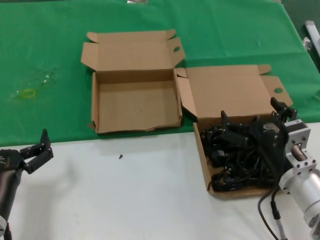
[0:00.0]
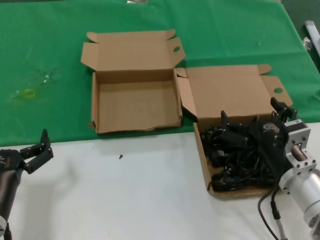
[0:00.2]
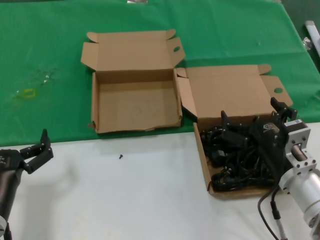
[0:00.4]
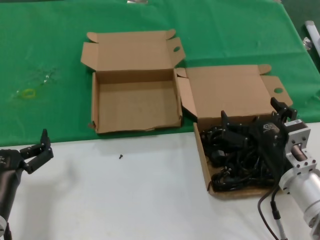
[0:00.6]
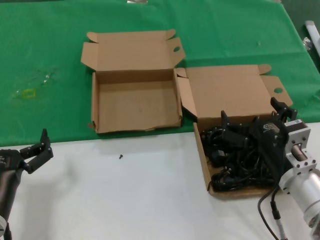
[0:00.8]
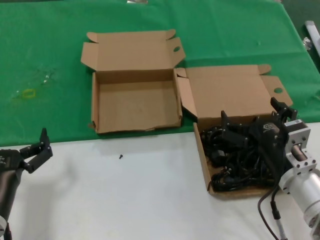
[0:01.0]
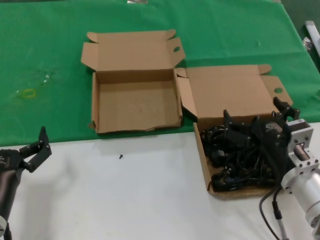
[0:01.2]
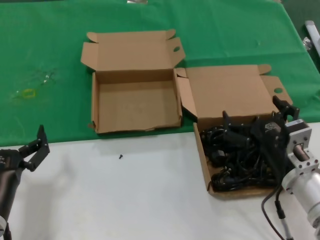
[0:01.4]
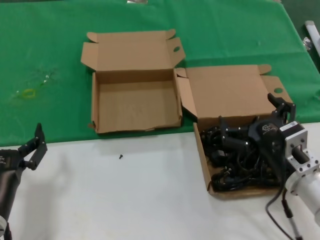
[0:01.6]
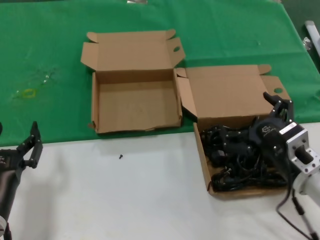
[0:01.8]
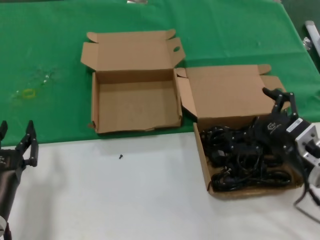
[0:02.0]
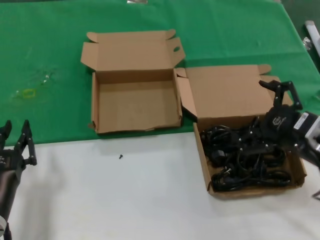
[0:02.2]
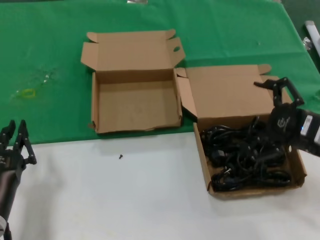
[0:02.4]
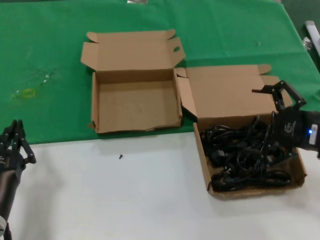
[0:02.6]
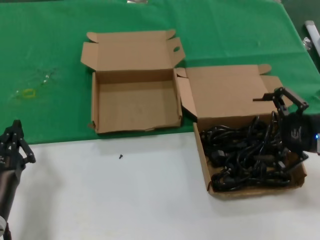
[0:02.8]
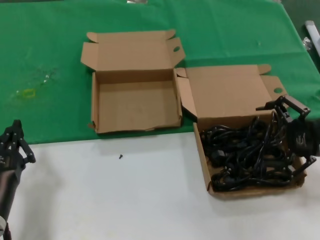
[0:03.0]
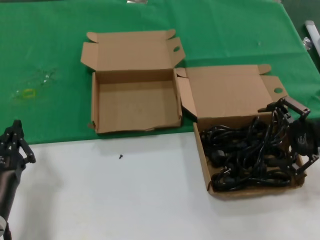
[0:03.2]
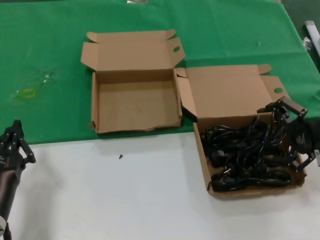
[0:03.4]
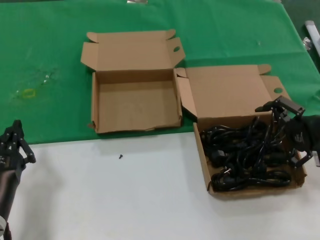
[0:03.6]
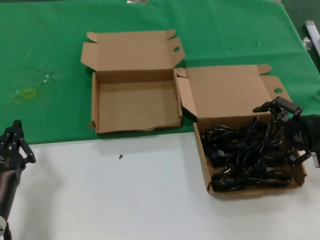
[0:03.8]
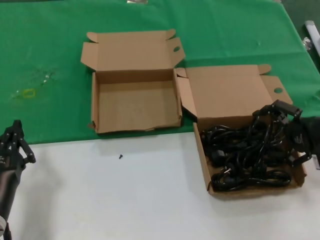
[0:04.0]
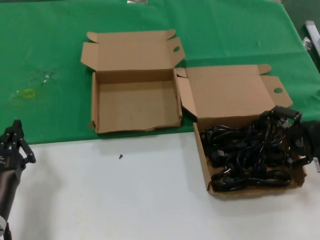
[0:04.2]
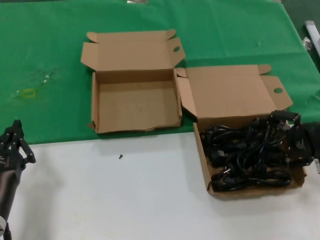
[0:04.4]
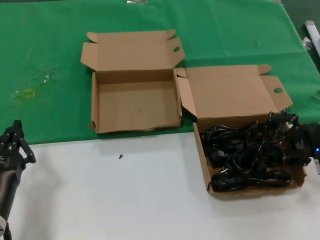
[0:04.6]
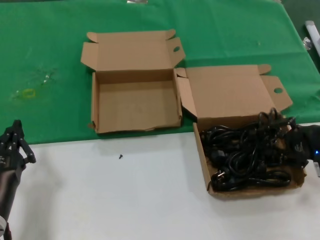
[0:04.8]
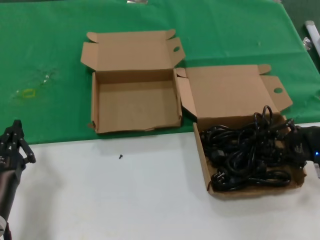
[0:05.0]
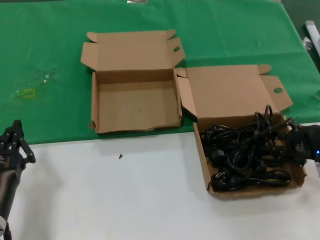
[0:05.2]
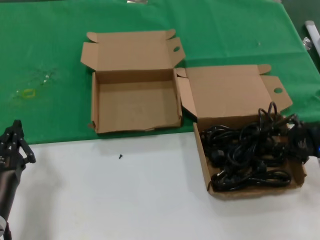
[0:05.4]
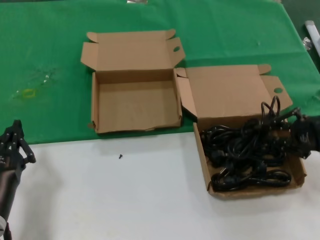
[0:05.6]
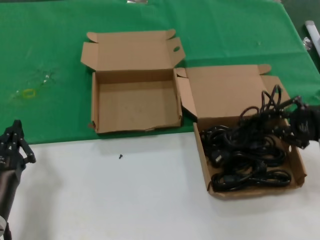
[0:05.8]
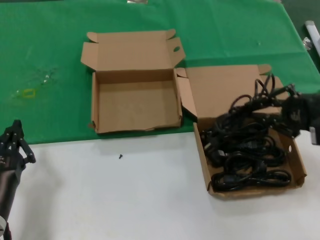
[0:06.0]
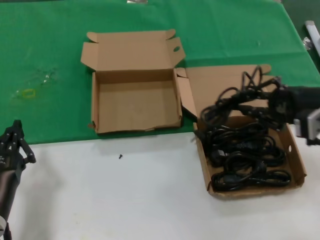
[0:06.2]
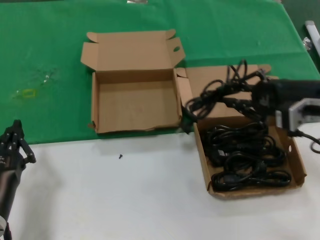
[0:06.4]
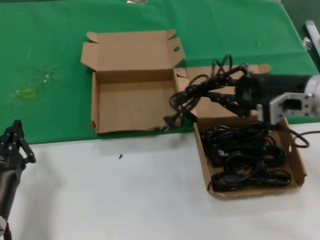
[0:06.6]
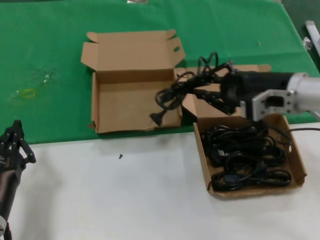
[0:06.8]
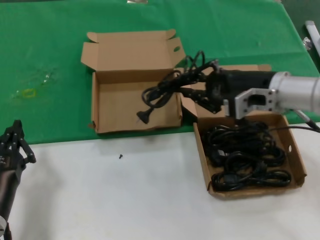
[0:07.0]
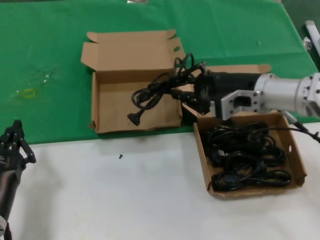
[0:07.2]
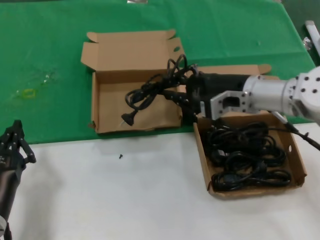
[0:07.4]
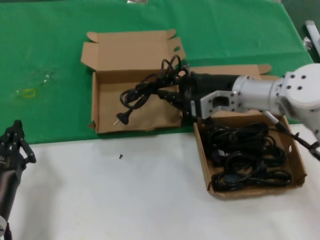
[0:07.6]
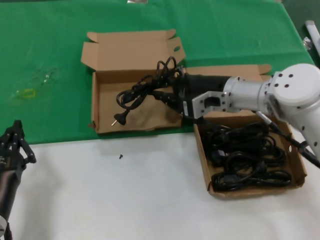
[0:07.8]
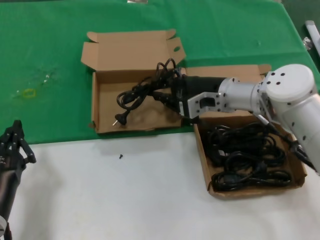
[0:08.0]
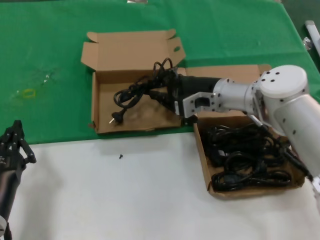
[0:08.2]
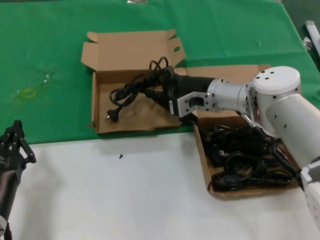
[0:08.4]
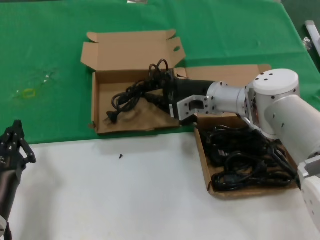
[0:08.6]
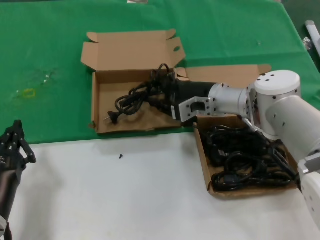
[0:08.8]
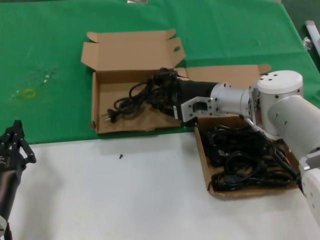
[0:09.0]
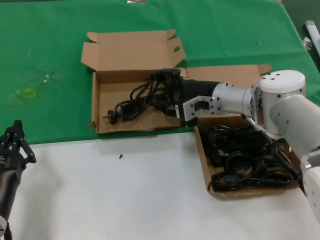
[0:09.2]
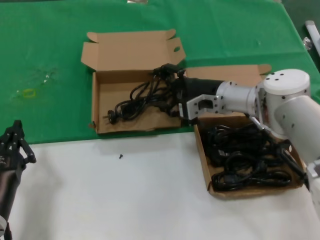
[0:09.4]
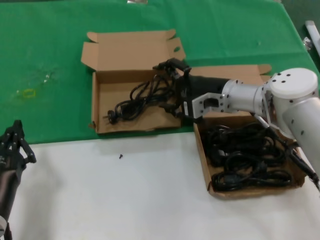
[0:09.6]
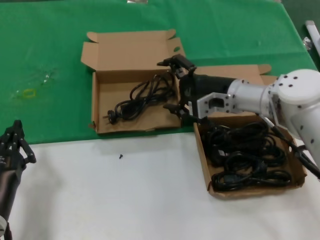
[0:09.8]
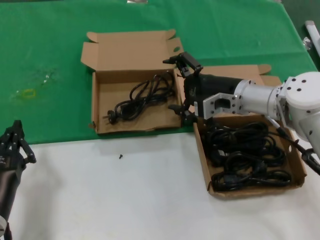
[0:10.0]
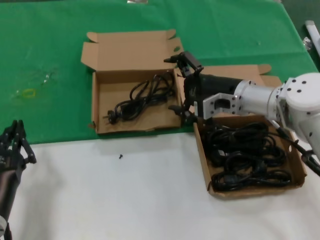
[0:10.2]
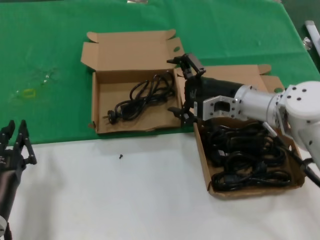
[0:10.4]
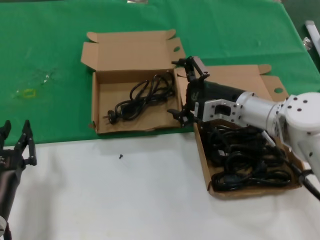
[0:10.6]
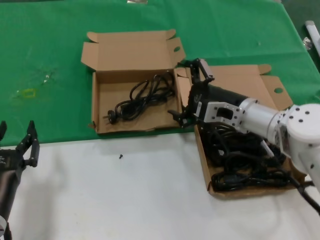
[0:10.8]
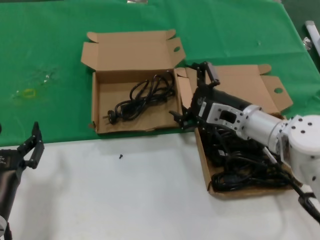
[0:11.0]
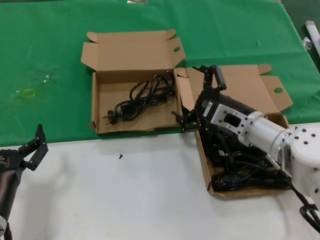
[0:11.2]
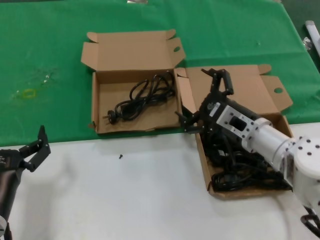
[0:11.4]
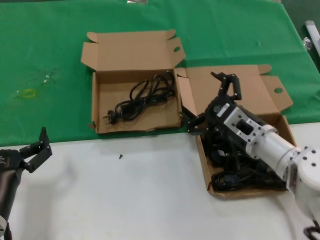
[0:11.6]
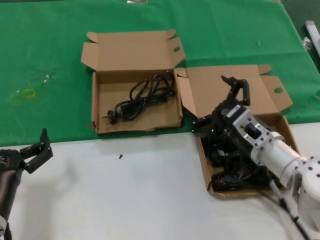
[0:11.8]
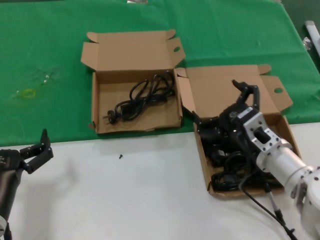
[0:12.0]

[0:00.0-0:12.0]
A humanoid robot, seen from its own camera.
Task of the whole recording: take the parts from the box containing them and put them into an empty box.
Step, 0:00.0 to 0:05.0: Grasp the data cable.
Step, 0:05.2 to 0:09.4: Place the data cable in the another box.
0:00.0 to 0:01.6: There are only small adjustments of the hands.
0:01.6 to 0:03.0: The right hand heads to the right and upward, covering some 20 cm.
0:03.0 to 0:04.4: The right hand shifts by some 5 cm.
0:04.4 to 0:06.0: The right hand travels upward by about 5 cm.
0:06.0 to 0:07.6: The right hand heads to the left and forward, covering approximately 20 cm.
0:07.6 to 0:09.0: The right hand goes about 10 cm forward and downward.
0:09.0 to 0:10.4: The right hand ends up roughly 5 cm from where it was.
0:10.4 to 0:12.0: The right hand heads backward and downward, covering about 15 cm.

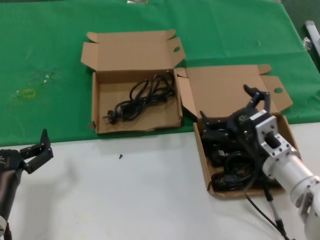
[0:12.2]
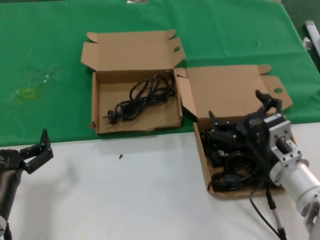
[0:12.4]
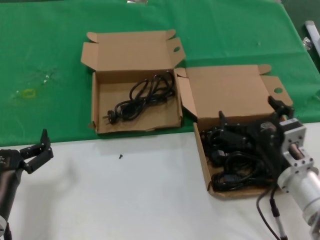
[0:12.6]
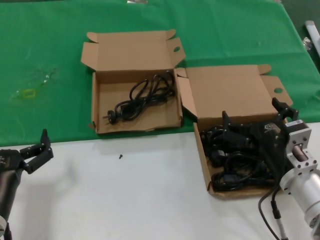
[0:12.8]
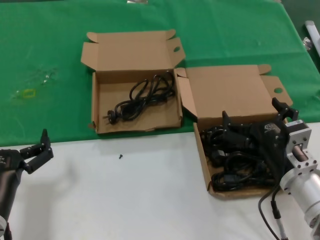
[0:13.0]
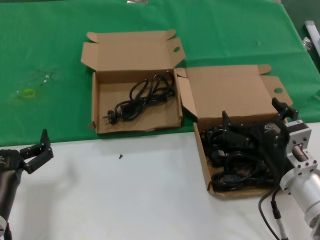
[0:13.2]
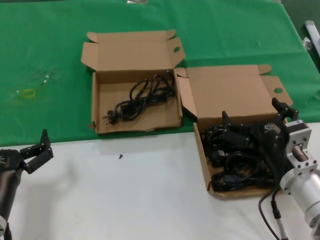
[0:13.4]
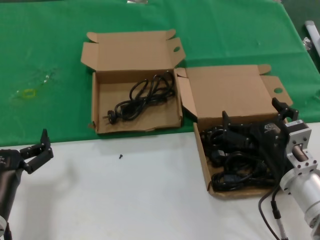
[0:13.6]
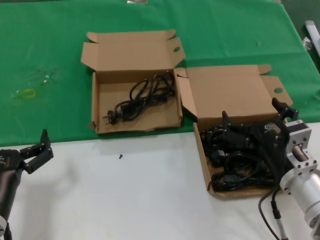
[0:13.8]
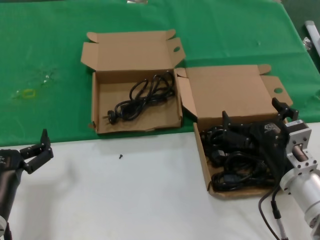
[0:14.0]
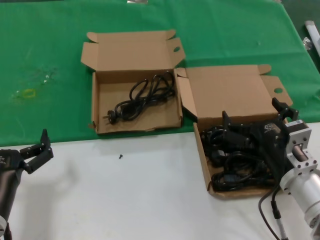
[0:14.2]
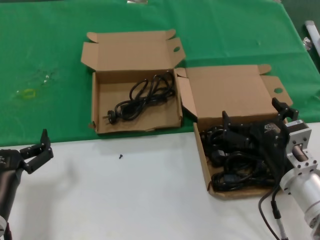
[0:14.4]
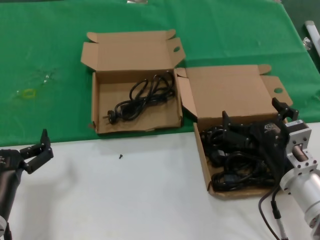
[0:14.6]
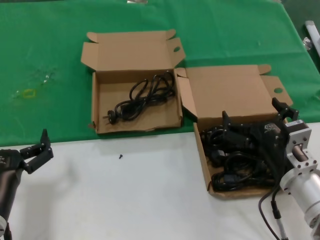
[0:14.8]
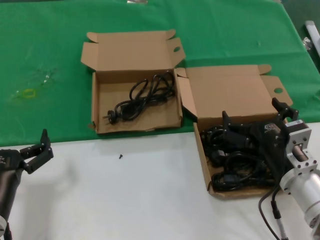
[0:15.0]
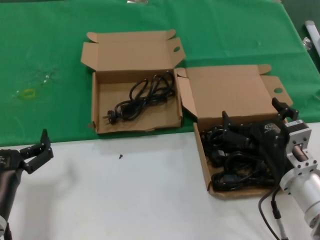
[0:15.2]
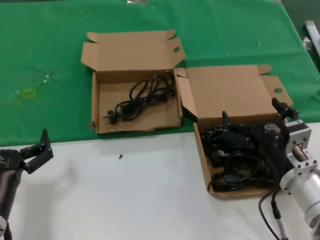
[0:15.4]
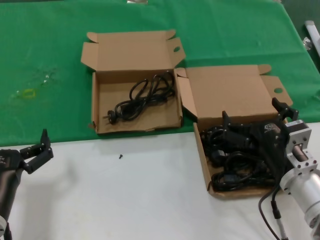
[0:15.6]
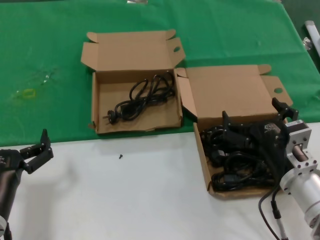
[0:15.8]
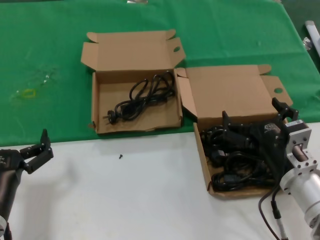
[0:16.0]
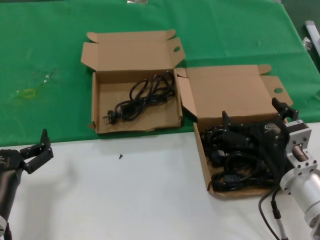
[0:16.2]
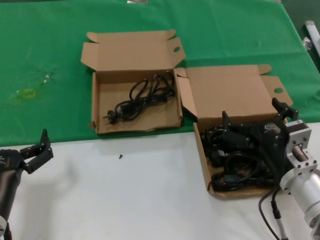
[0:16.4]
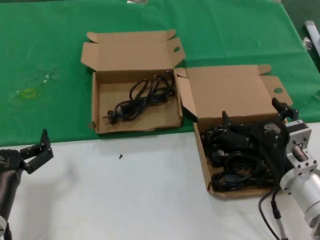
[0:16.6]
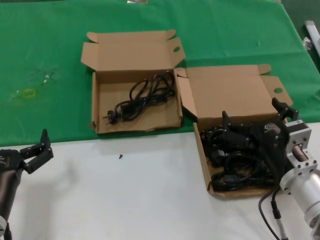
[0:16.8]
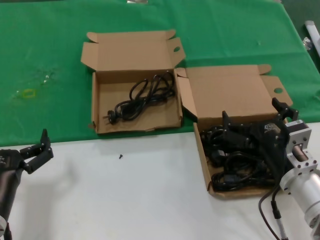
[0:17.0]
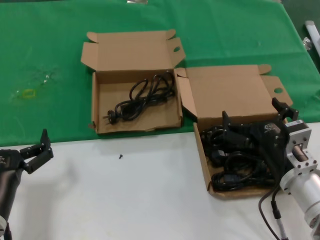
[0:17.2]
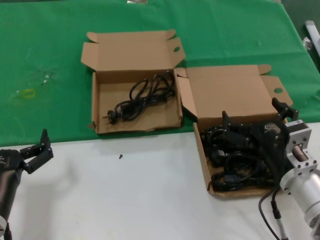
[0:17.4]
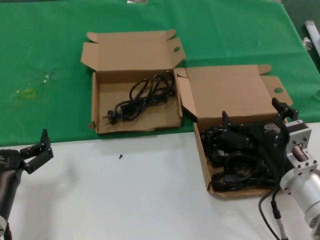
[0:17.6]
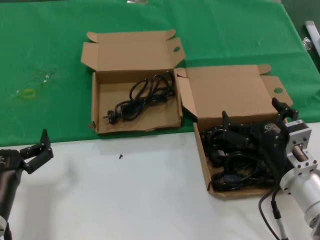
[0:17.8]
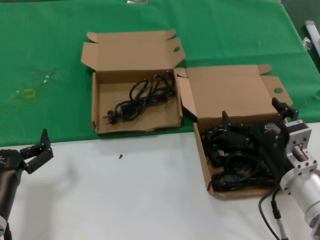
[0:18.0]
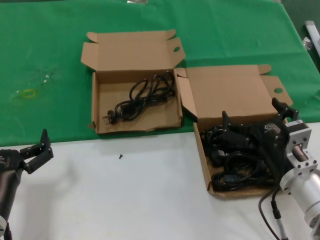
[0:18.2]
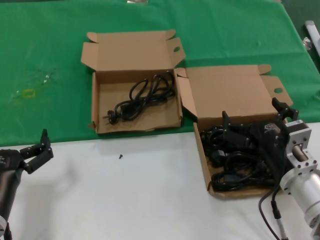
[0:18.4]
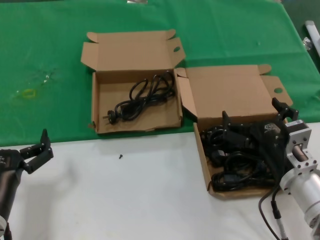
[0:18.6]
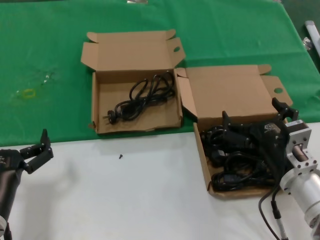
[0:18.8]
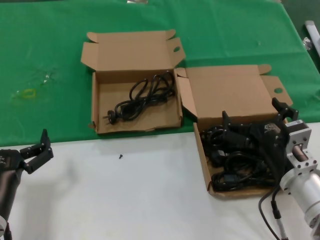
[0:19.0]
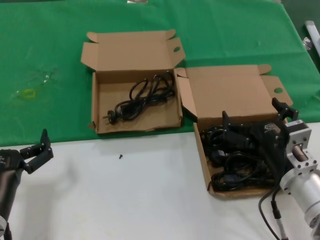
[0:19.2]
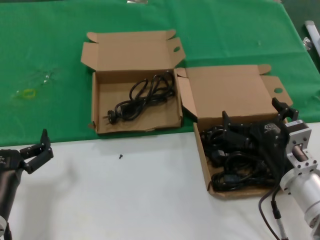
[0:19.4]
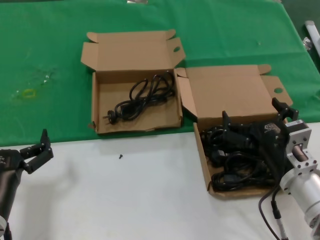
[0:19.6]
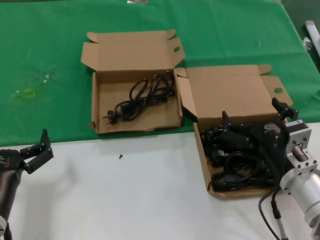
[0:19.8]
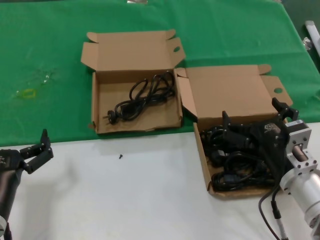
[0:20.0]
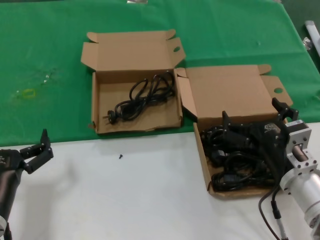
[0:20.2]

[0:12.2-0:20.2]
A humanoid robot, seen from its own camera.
Task of the whole recording: take the parts from the box containing them and put them into an empty box.
0:12.2 to 0:13.8: There are only small adjustments of the hands.
0:13.8 to 0:20.2: Both hands stay about where they are.

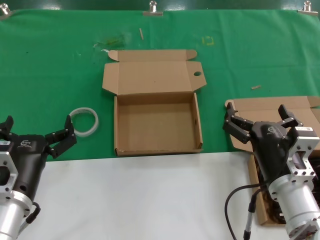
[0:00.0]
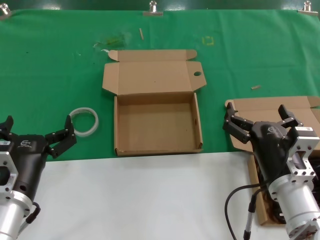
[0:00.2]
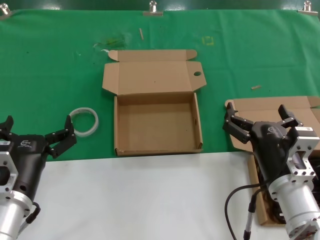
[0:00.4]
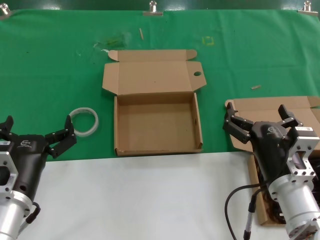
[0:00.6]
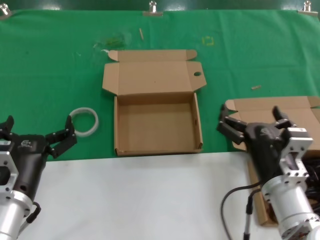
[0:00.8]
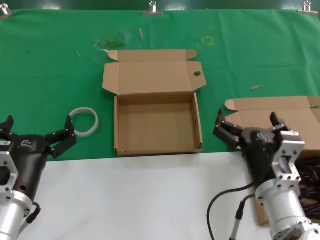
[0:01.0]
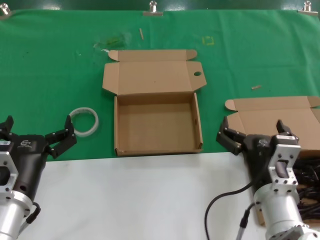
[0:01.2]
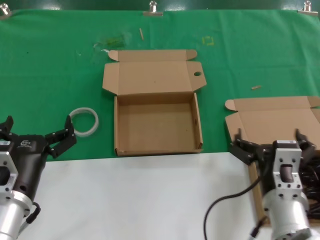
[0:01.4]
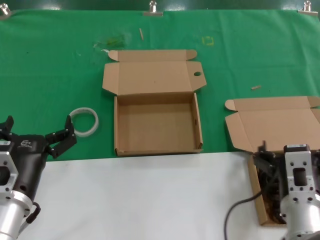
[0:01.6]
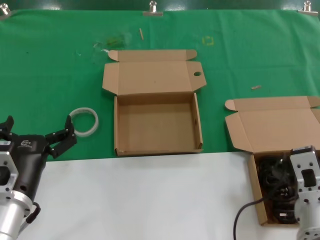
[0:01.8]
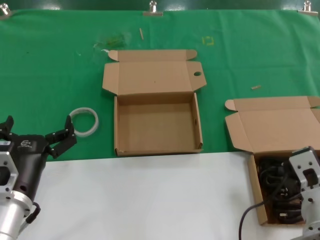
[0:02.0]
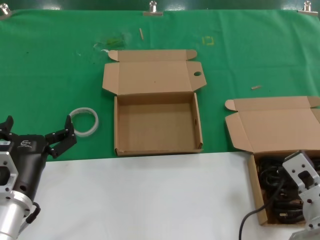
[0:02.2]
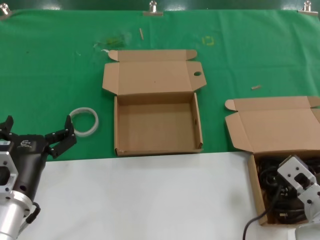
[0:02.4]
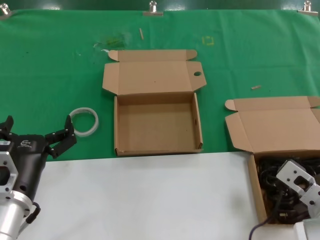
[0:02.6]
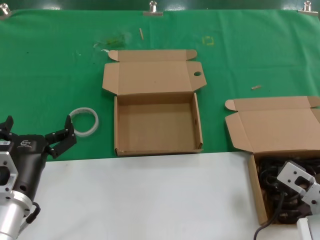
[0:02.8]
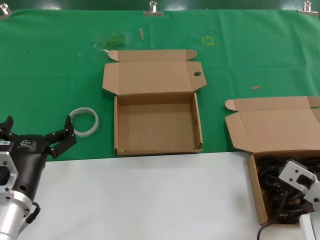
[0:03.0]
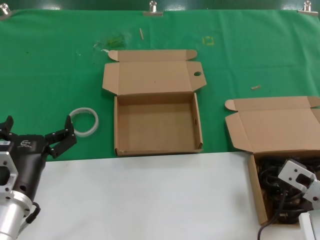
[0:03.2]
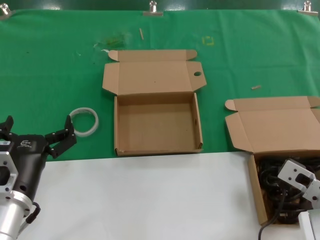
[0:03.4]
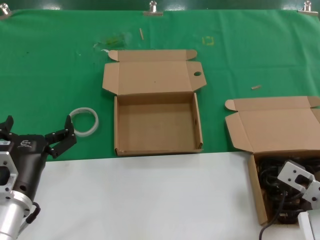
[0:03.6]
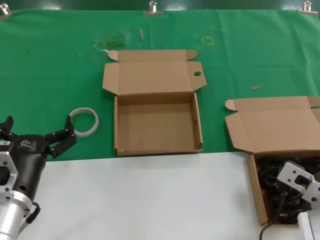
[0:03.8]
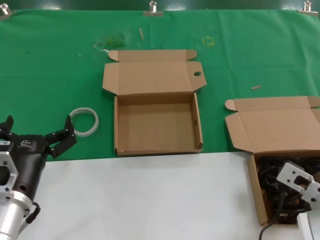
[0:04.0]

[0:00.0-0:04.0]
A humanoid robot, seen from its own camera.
Task of the whole recording: take the parts from the box containing them and put them into an empty box.
0:00.0 to 0:01.4: The hands stay close to where they were, moving slightly.
0:01.4 to 0:02.6: The right hand goes about 5 cm to the right.
0:02.6 to 0:04.0: The hands make only small movements.
